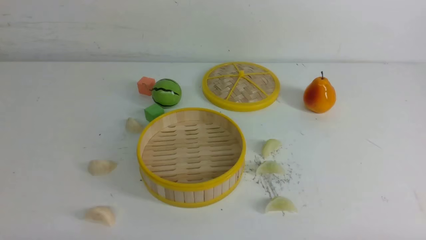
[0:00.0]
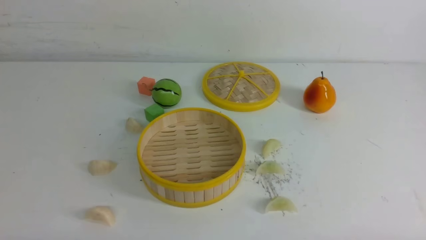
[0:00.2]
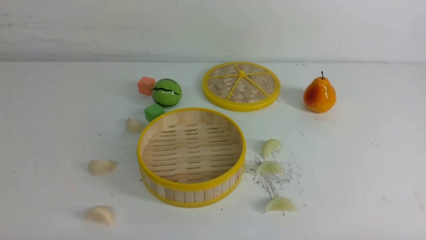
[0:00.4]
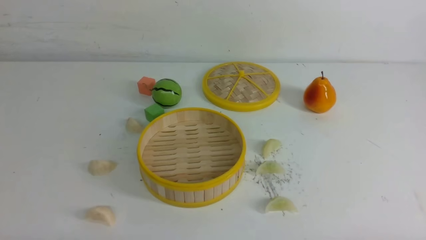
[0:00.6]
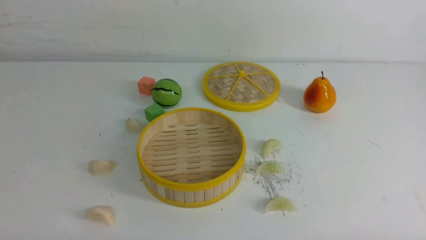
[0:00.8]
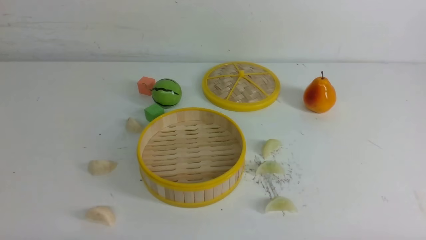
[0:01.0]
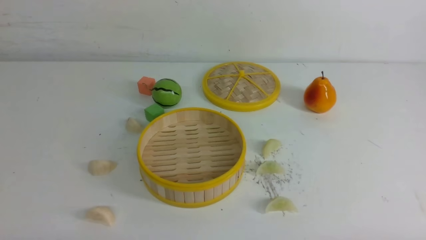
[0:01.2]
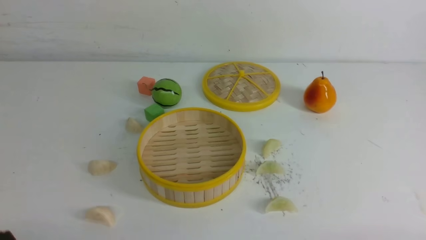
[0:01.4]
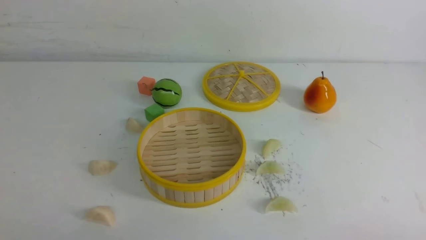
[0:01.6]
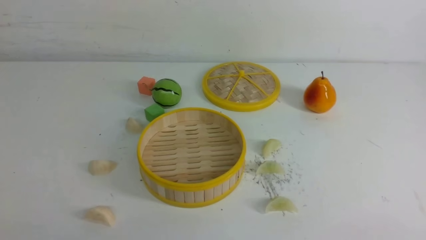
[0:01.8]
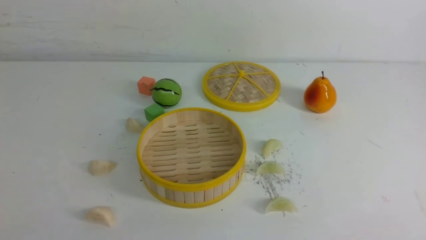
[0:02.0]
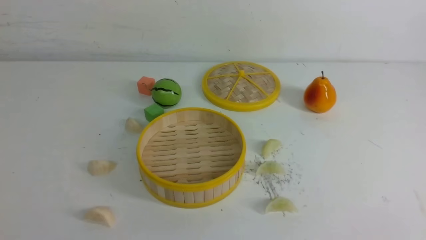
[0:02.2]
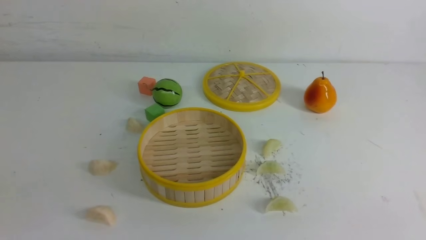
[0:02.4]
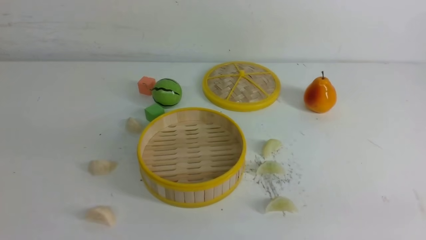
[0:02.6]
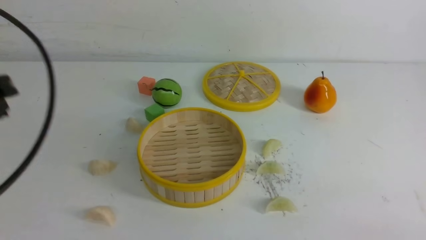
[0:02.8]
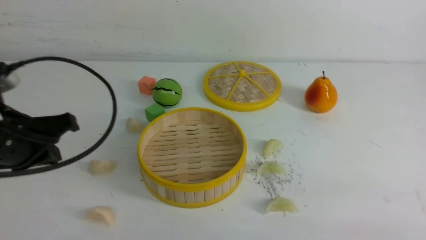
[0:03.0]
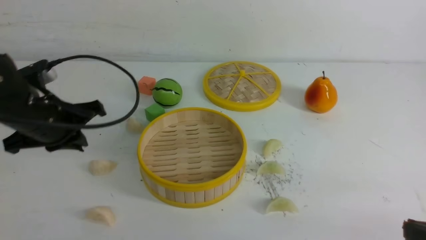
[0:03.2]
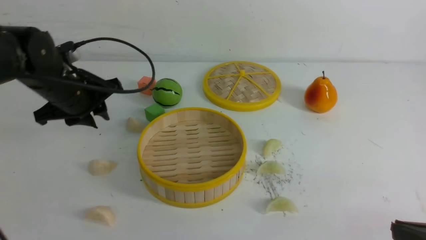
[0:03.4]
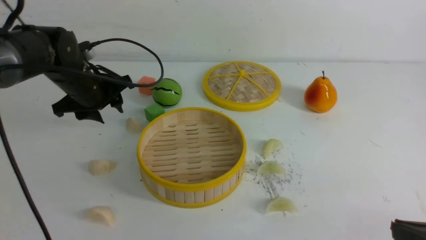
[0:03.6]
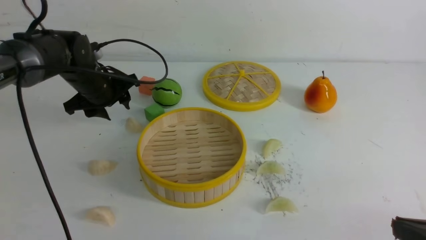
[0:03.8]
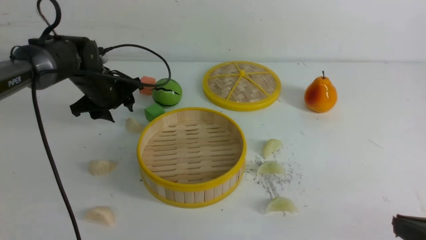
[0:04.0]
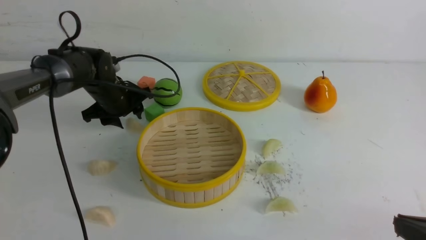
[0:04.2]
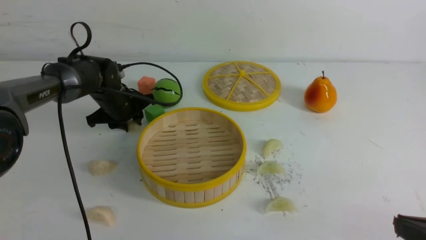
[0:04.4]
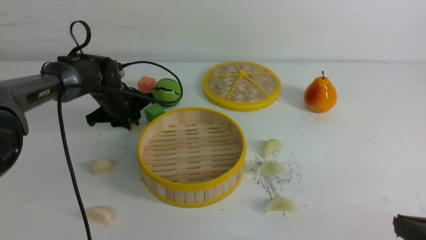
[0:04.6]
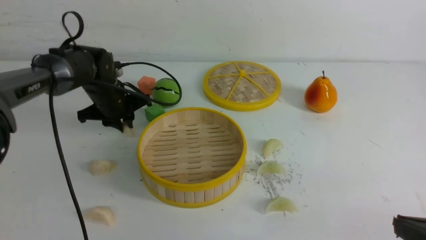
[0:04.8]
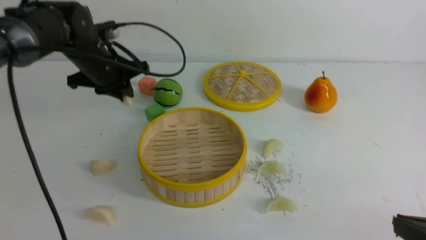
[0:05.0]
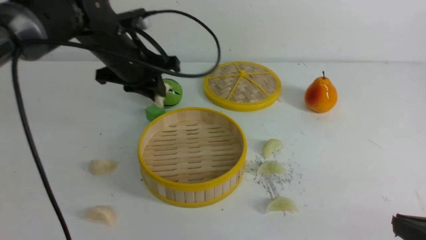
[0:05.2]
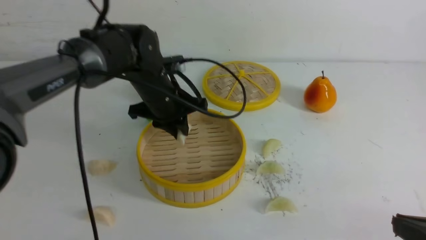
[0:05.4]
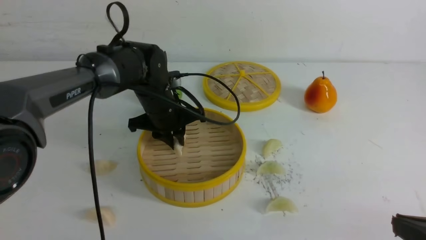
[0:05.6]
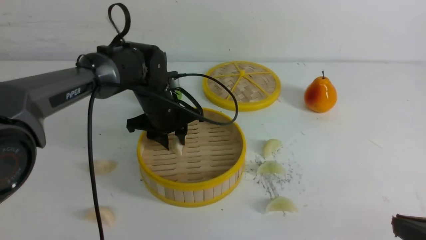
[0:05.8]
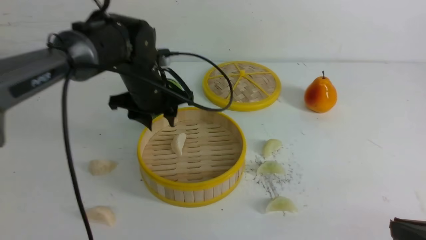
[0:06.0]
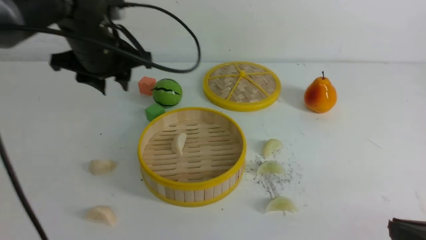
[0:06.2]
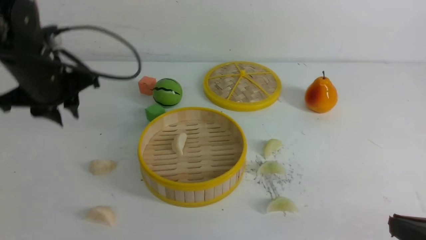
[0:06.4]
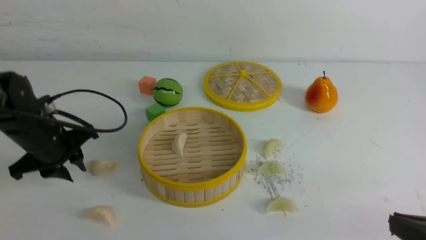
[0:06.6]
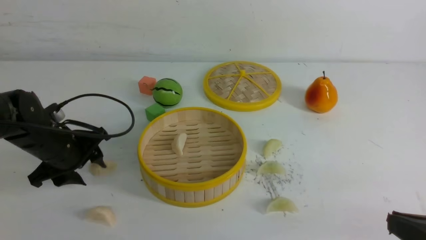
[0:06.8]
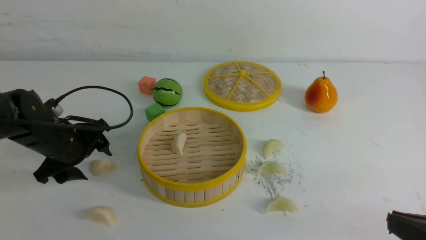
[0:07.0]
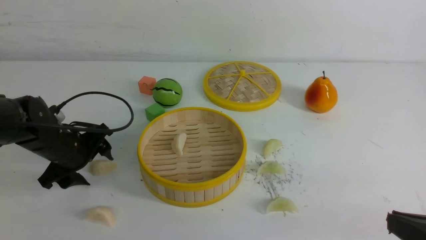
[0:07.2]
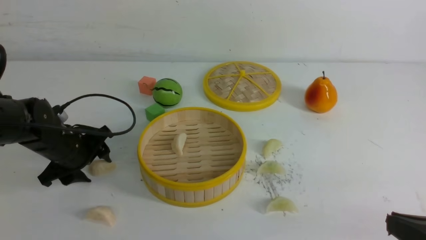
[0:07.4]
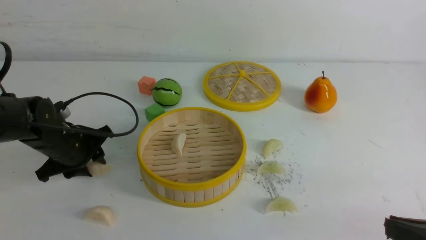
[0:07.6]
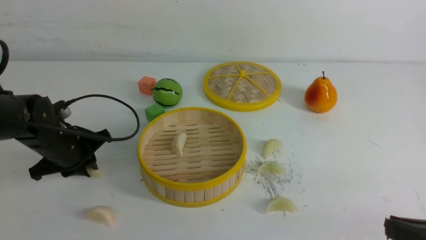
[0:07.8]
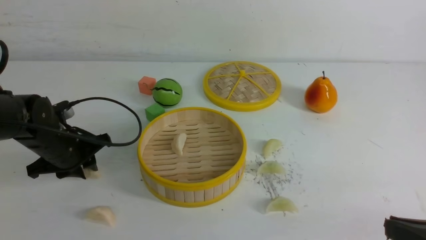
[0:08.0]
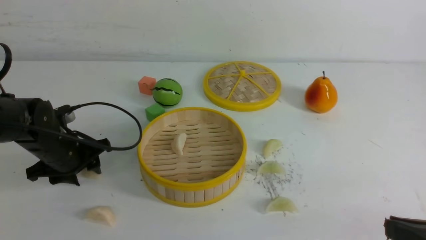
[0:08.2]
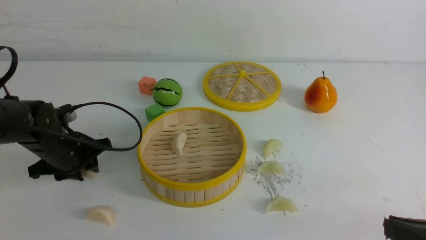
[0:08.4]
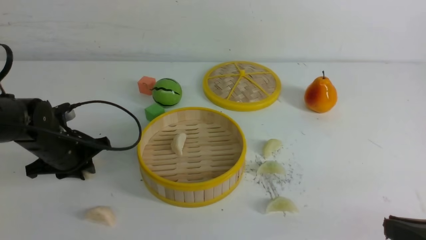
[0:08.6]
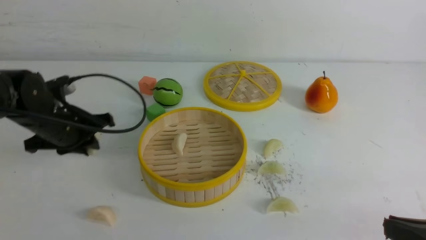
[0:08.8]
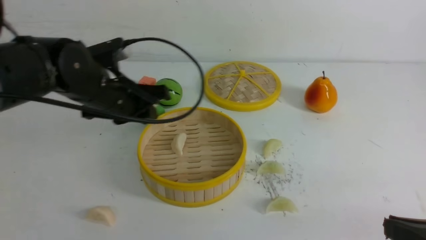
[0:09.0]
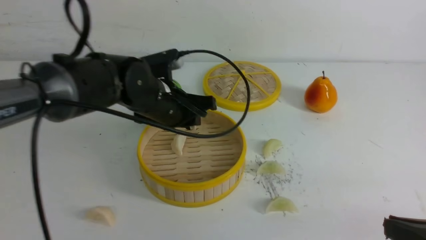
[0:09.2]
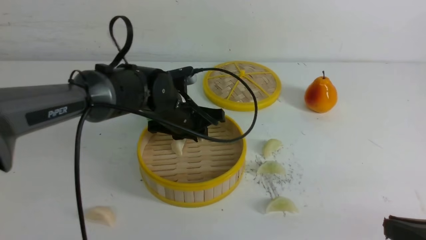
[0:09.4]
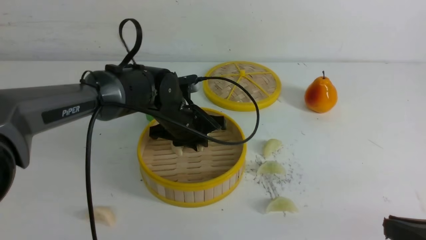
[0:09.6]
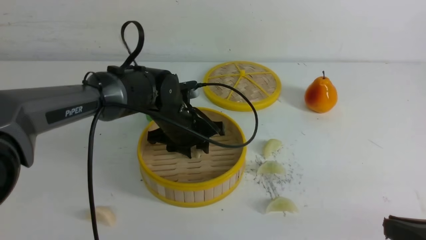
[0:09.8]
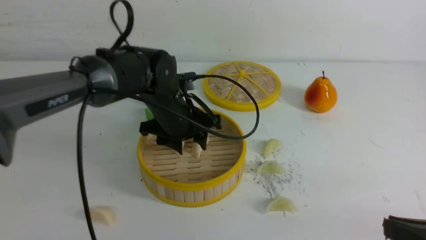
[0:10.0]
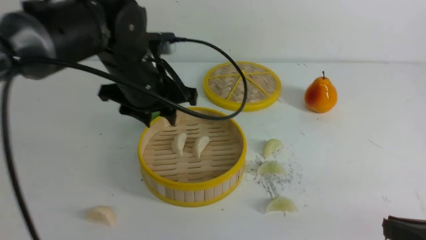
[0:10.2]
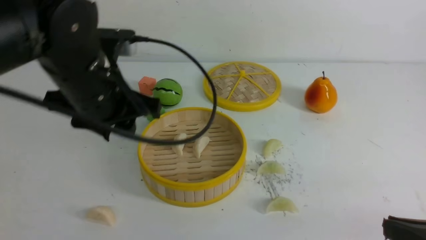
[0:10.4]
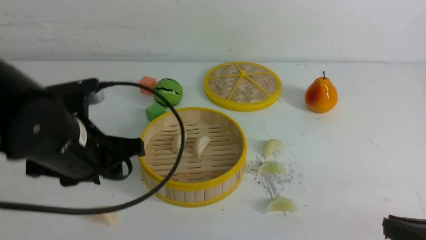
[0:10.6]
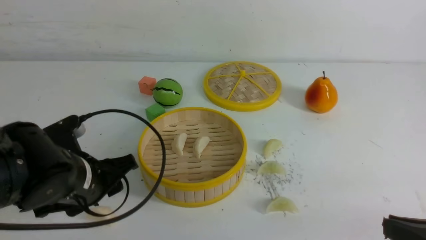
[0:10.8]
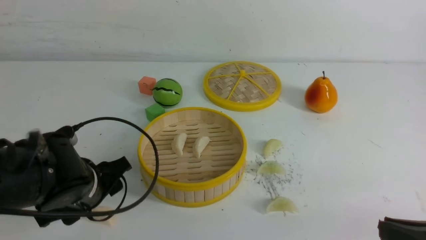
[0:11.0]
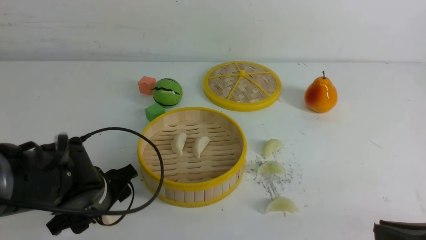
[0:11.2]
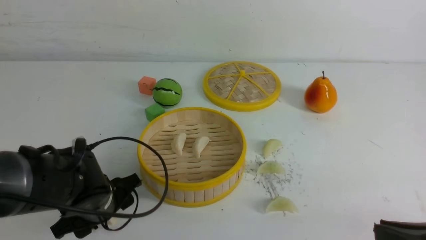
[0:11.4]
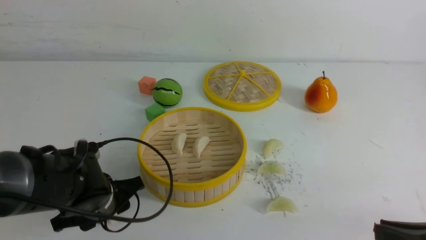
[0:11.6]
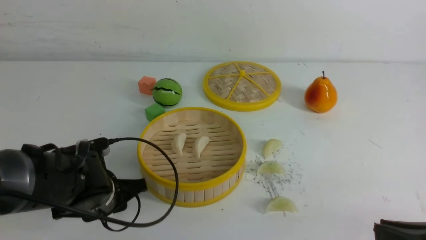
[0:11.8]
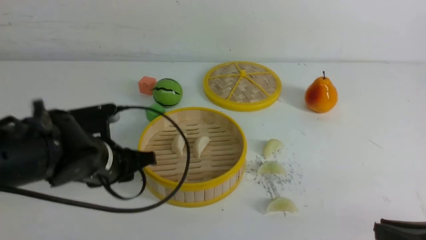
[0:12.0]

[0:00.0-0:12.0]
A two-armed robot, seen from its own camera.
Task of the whole recording: put the dumplings into the steamer on the white table.
Step, 0:00.0 to 0:04.8: use the left arm to grab a dumpling.
Step, 0:05.0 to 0:05.8: use the left arm to put the dumpling into the steamer.
Step, 0:06.0 to 0:08.6: use the left arm to grab a dumpling.
Step, 0:08.8 to 0:09.8: use the left arm to put the dumpling into the steamer.
Step, 0:10.0 to 0:11.8: use the left arm to grab a dumpling.
0:01.6 to 0:03.0: The left gripper goes about 20 cm forward and upward.
0:03.0 to 0:04.4: The left gripper shifts approximately 25 cm forward and downward, and opens up.
0:04.4 to 0:06.0: The left gripper goes up and down, roughly 10 cm each way, reversing 2 times.
0:06.0 to 0:07.6: The left gripper is displaced to the left, downward and backward by about 20 cm.
0:07.6 to 0:09.0: The left gripper goes roughly 15 cm to the right and upward.
0:09.0 to 0:10.4: The left gripper travels backward and upward by about 10 cm.
0:10.4 to 0:12.0: The left gripper heads downward, covering approximately 10 cm.

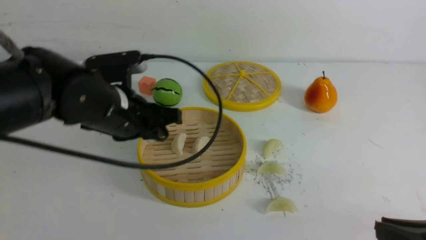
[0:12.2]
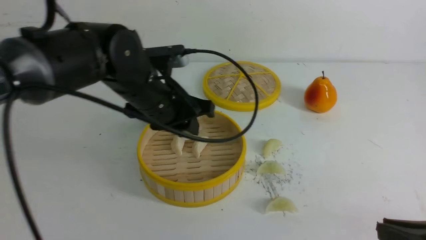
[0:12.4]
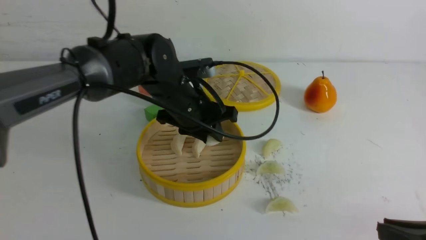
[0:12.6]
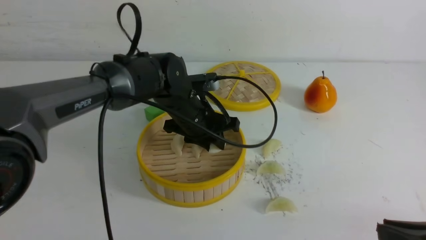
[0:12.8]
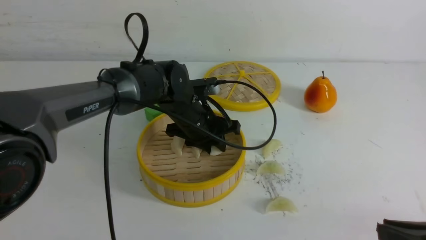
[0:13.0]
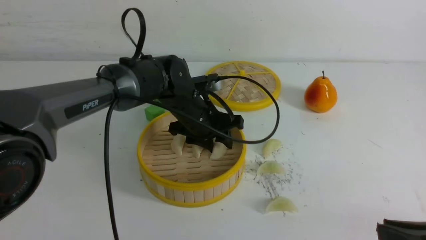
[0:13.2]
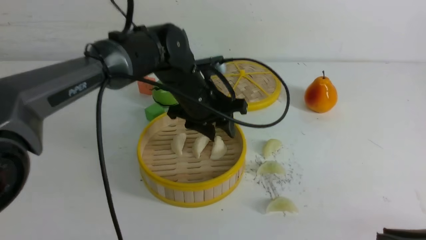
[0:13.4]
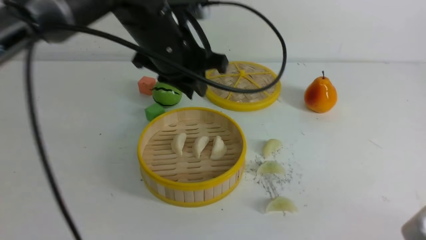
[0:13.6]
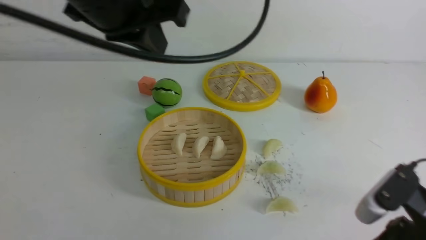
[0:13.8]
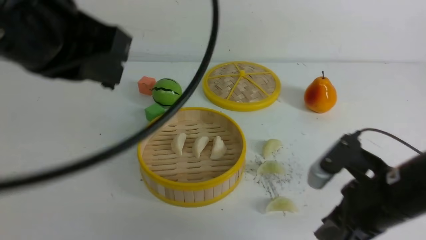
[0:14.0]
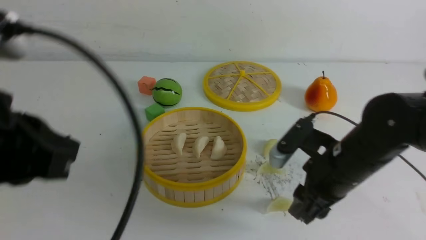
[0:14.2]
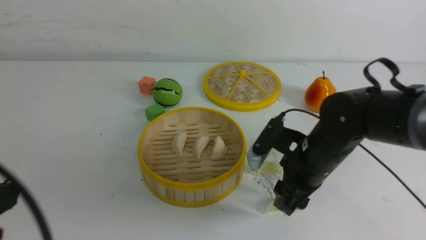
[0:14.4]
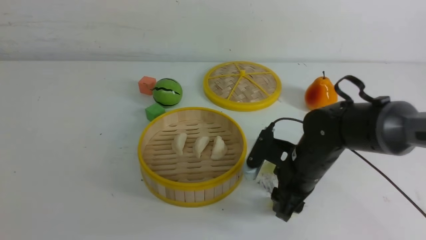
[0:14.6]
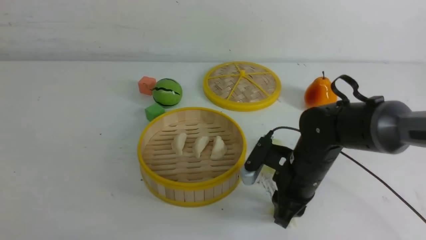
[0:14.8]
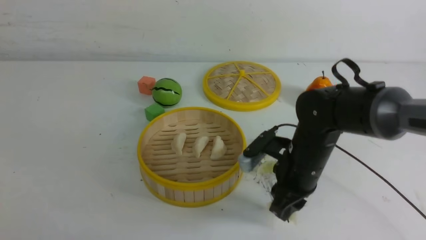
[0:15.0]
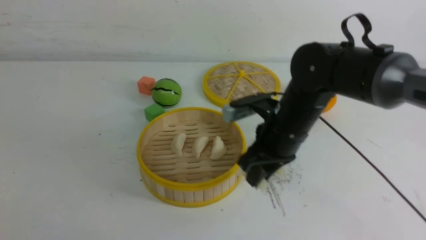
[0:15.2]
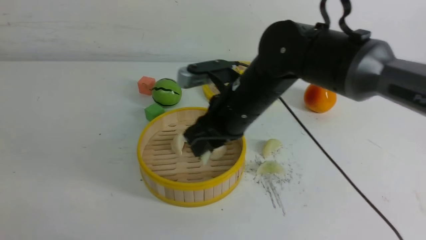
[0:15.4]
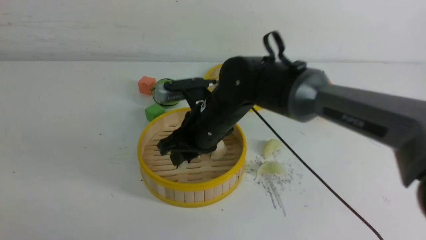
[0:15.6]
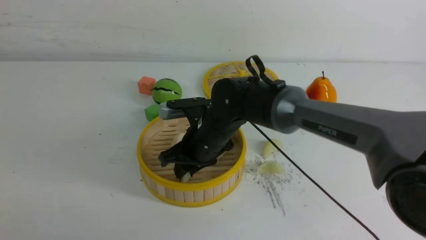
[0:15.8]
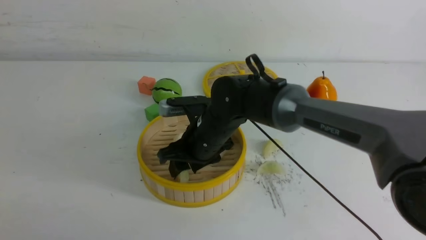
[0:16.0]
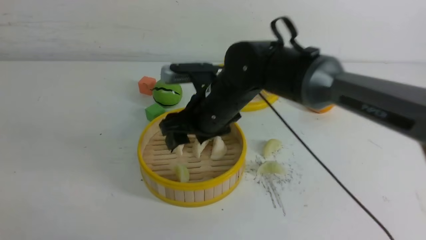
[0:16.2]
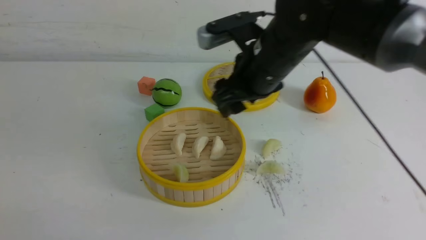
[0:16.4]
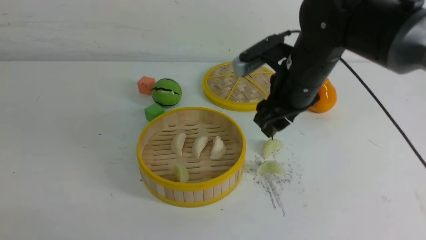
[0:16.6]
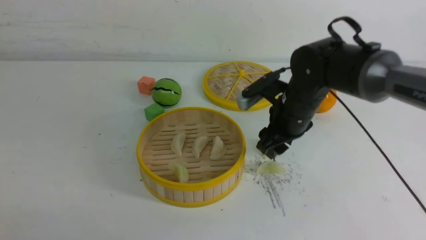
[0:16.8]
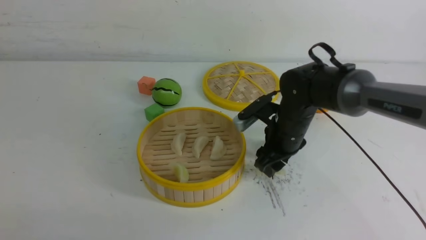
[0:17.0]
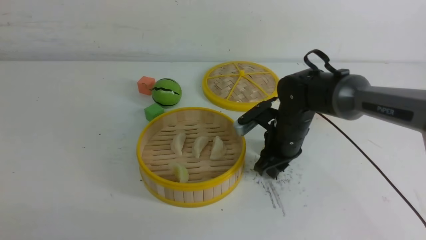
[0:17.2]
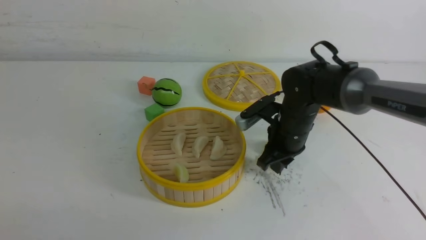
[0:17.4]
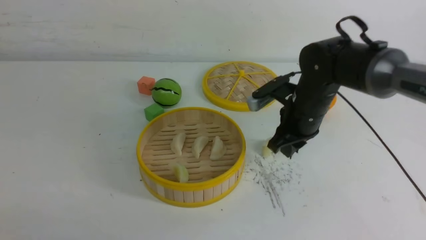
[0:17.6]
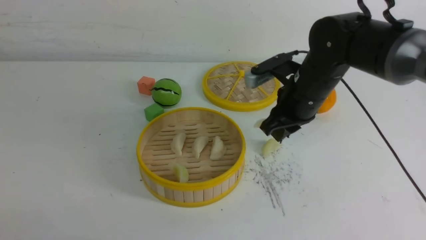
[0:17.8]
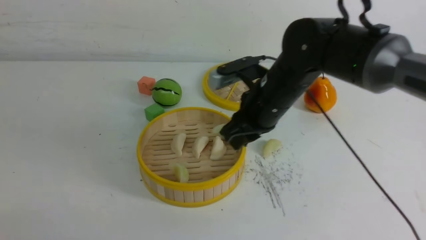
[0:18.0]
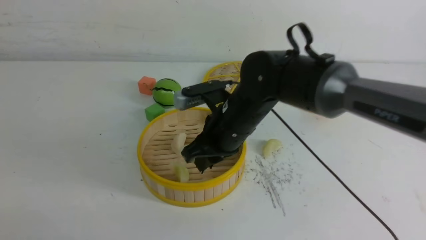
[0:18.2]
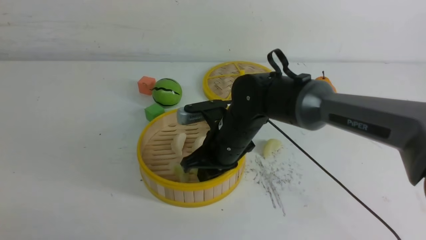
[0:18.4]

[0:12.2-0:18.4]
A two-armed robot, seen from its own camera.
Task of the whole recording: put the dumplings into the steamer on the white table.
Step, 0:12.2 to 0:13.0: use the left arm to put the dumpling into the steamer.
Step, 0:13.2 to 0:15.0: use the right arm to grab a dumpling.
Step, 0:15.2 to 0:15.8: use the right arm to put the dumpling into the steamer.
Step, 0:16.2 to 0:17.4: use the right arm to grab a dumpling.
0:12.2 to 0:13.8: The left gripper moves upward, approximately 15 cm, and closes up; the right gripper moves forward, about 5 cm.
0:13.8 to 0:15.4: The right gripper shifts roughly 25 cm forward and to the left, and opens, then closes again, while the left gripper goes approximately 30 cm backward, downward and to the left.
0:15.4 to 0:16.8: The right gripper is displaced to the right by about 10 cm, and opens.
0:16.8 to 0:18.4: The right gripper moves to the left, about 10 cm, and closes up.
